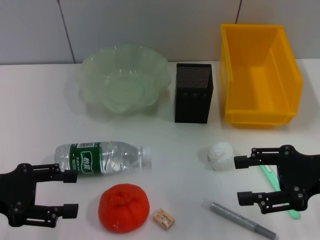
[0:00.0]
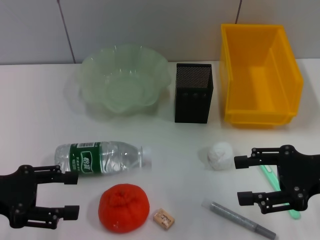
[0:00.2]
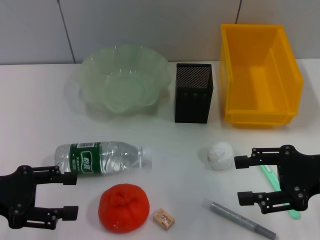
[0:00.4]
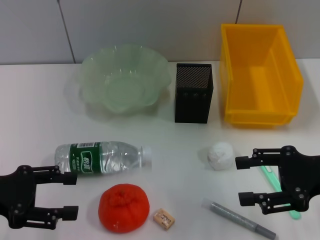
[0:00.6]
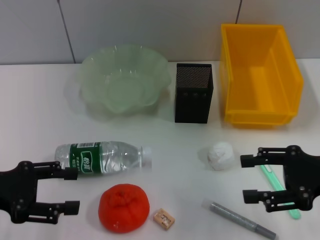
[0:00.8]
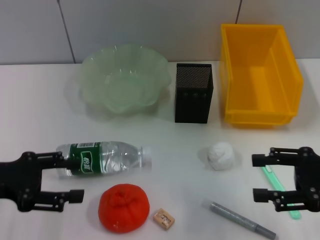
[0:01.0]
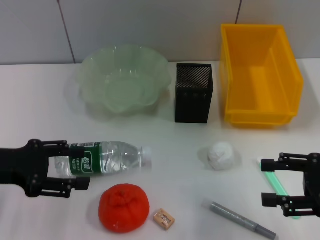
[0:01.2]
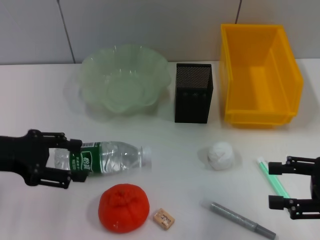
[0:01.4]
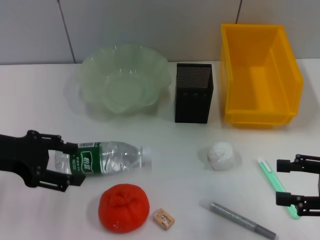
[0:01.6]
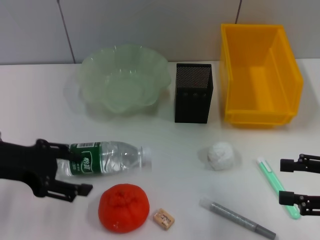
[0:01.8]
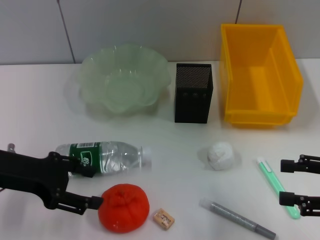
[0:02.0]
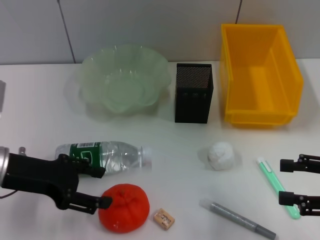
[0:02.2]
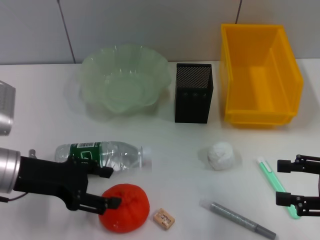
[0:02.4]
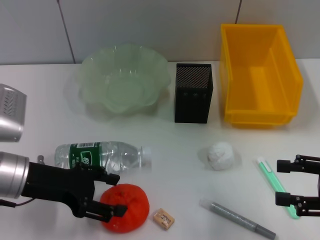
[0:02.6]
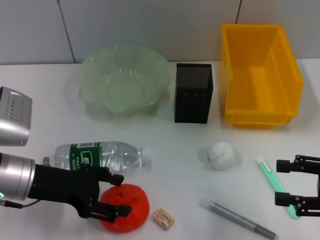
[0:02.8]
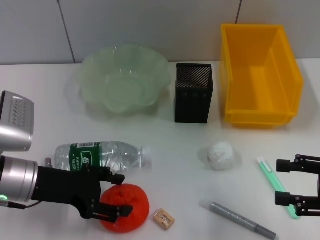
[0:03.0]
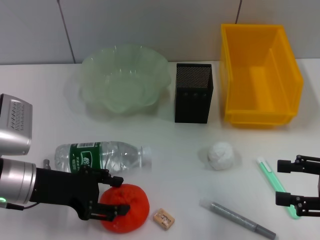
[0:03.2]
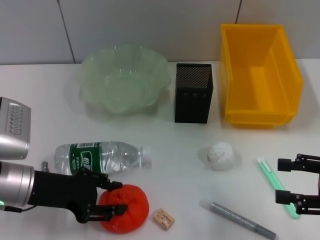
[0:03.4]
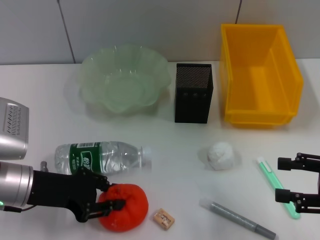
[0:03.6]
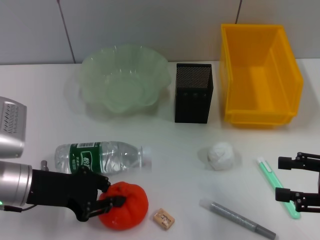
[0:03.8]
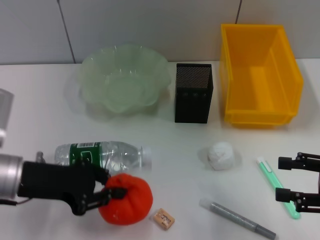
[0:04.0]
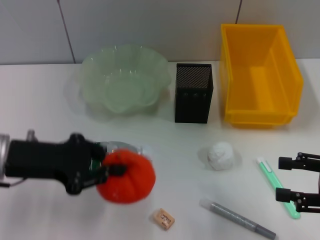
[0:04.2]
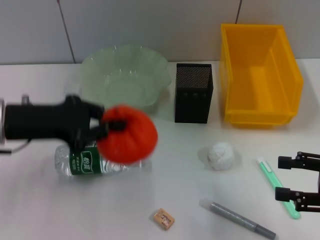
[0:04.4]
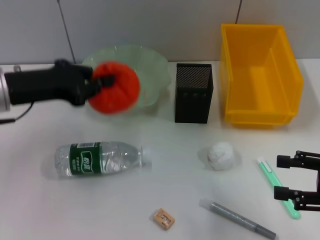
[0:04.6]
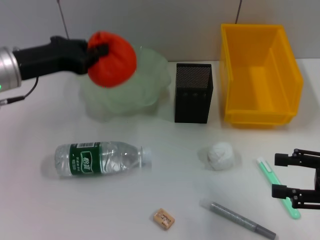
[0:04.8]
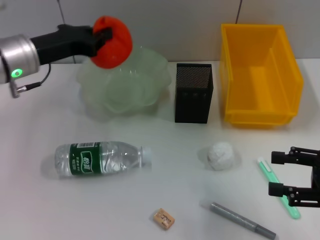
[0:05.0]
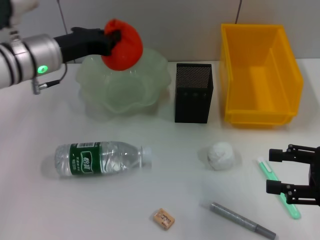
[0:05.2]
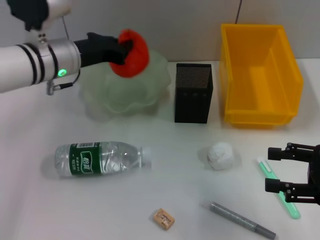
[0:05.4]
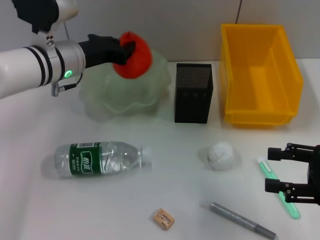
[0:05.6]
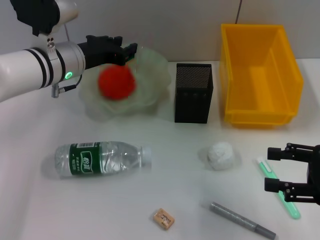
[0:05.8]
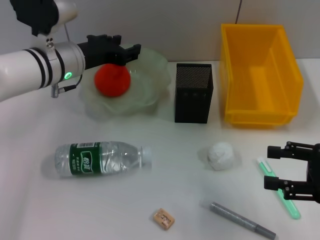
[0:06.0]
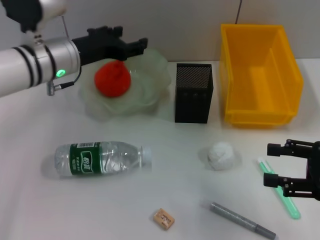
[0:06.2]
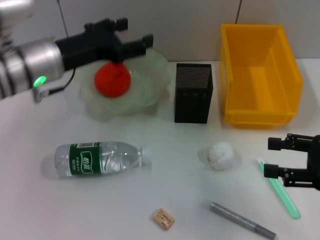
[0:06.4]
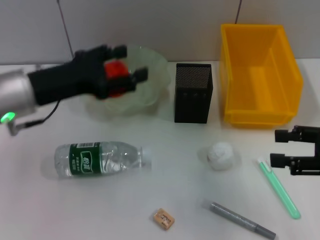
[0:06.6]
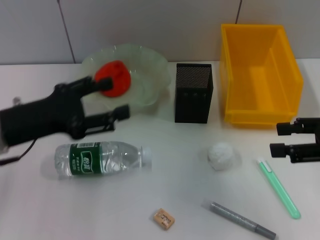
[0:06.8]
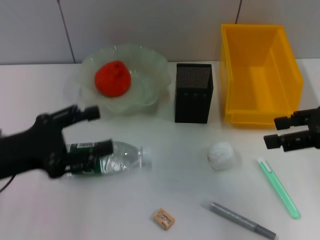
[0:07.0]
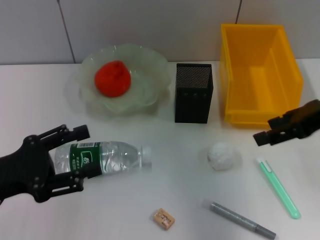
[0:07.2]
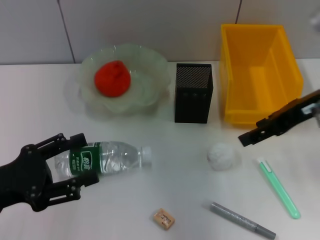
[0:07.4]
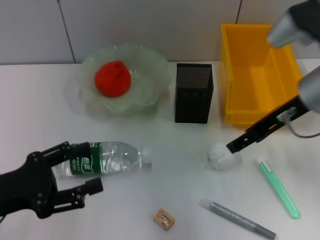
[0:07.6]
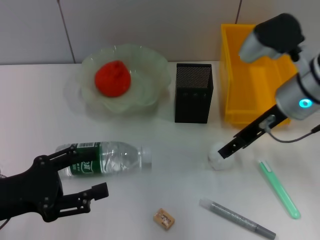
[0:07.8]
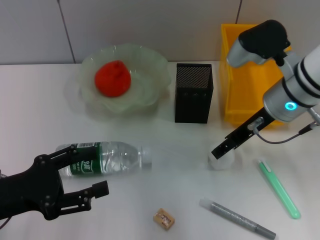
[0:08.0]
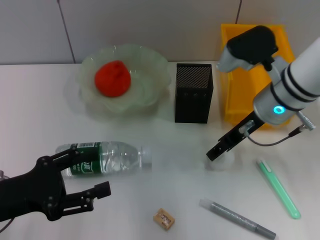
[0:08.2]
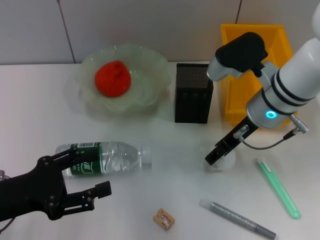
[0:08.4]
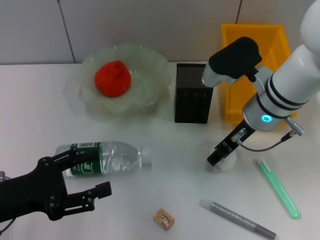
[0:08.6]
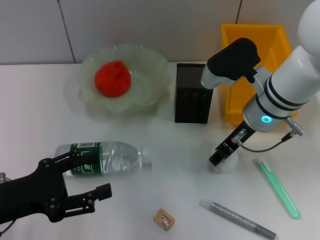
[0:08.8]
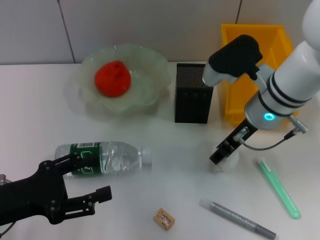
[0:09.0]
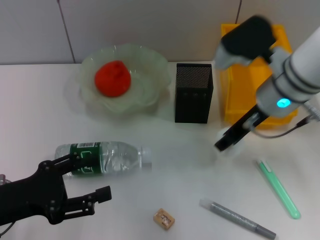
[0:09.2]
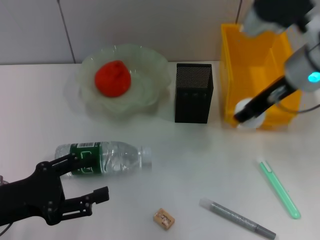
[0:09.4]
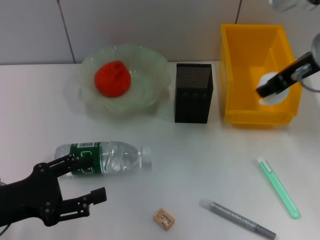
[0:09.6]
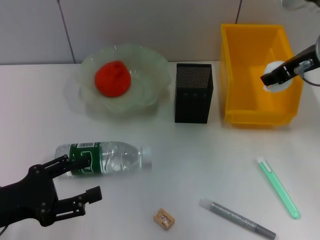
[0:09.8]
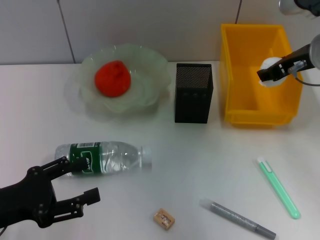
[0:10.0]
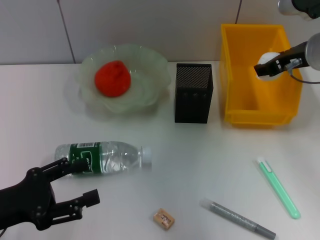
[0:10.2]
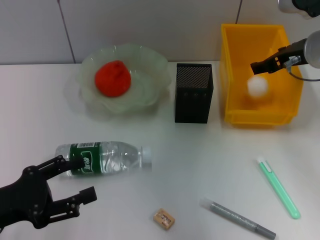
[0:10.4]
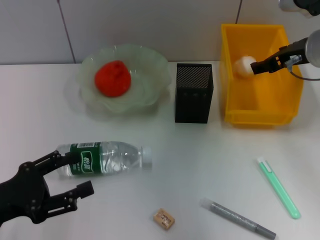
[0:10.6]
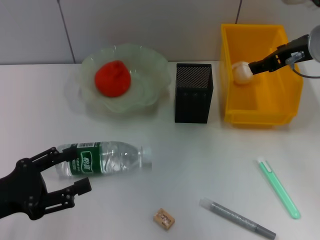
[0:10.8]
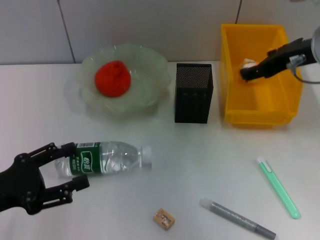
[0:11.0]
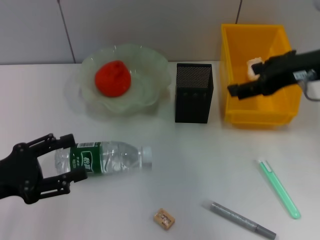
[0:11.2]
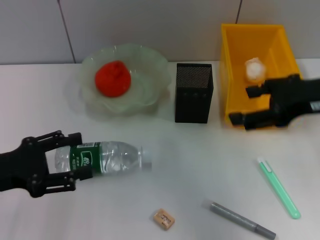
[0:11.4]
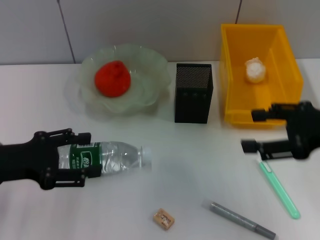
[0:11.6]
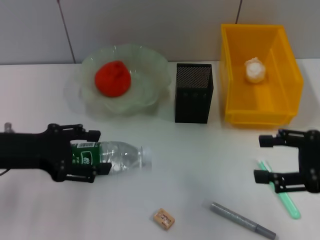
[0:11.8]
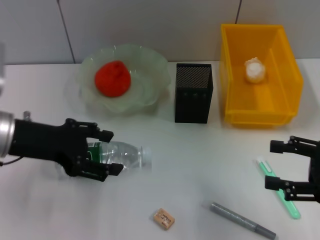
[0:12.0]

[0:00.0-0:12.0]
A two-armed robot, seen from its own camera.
Step, 0.0 to 3.6 s: Grab the orange with the left hand.
Step, 3.8 to 6.0 s: Place the orange into the fruit bowl with the left hand.
Step, 6.2 to 8.6 s: Grab the paper ball with the right hand.
Step, 8.8 to 10.6 s: Place the paper ball into the trash can with the right hand.
0.0 to 1.6 s: The right gripper shifts some 5 cm to the right; the left gripper ends up roughly 5 cm from where it was.
1.6 to 3.0 s: The left gripper travels downward and to the right by about 10 cm.
3.0 to 4.4 s: The left gripper heads upward, covering approximately 10 cm, and closes its fingers.
4.4 to 6.0 s: The left gripper travels forward and to the right by some 15 cm, and opens up.
6.0 to 7.6 s: The left gripper heads backward and to the left, covering about 25 cm, and opens; the right gripper shifts approximately 20 cm to the left, forward and upward.
7.6 to 9.0 s: The right gripper goes roughly 5 cm to the left.
9.0 to 10.4 s: The right gripper goes approximately 10 cm to the right.
10.4 to 12.0 s: The left gripper travels forward, upward and to the right by approximately 15 cm, while the right gripper travels backward and to the right by approximately 20 cm.

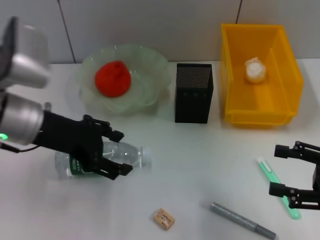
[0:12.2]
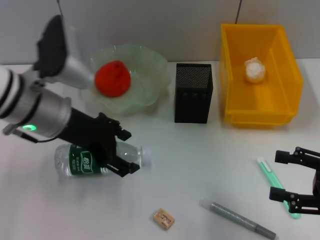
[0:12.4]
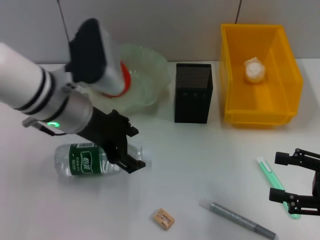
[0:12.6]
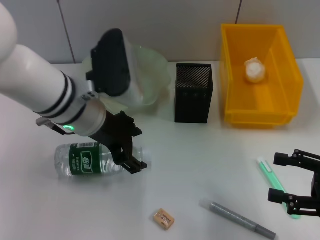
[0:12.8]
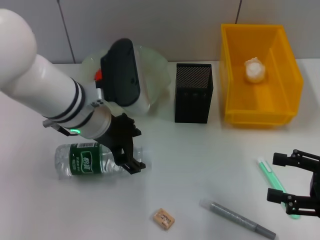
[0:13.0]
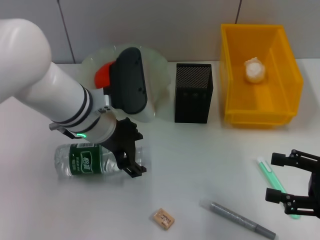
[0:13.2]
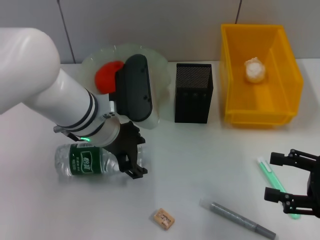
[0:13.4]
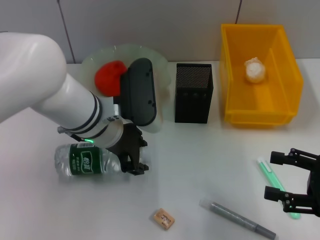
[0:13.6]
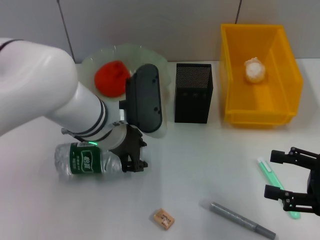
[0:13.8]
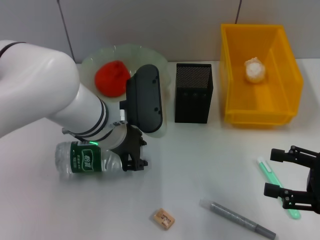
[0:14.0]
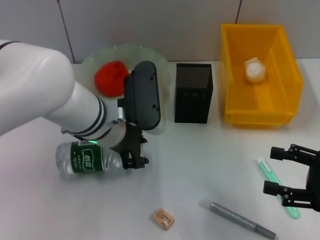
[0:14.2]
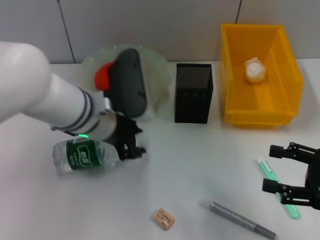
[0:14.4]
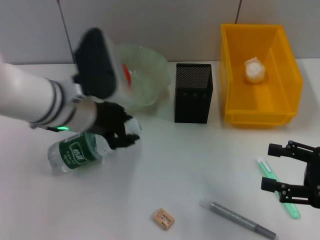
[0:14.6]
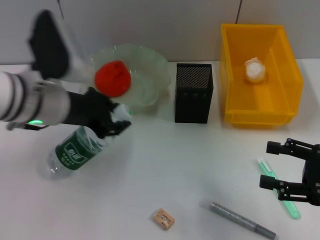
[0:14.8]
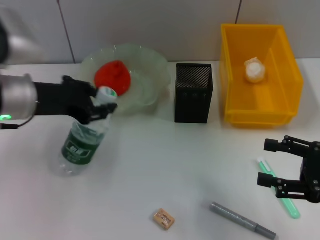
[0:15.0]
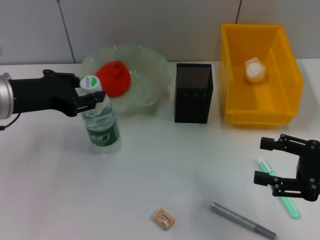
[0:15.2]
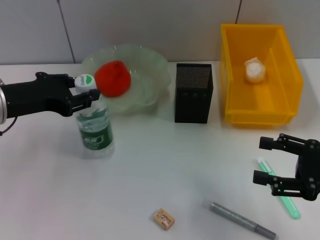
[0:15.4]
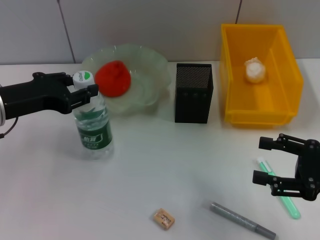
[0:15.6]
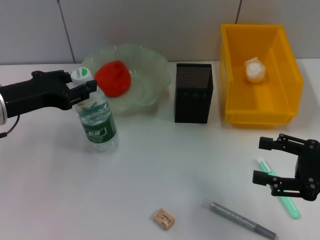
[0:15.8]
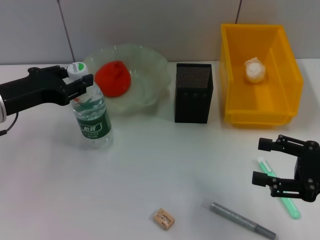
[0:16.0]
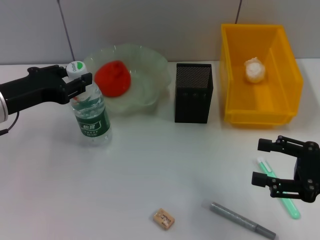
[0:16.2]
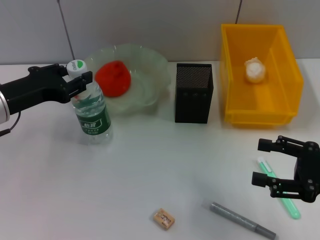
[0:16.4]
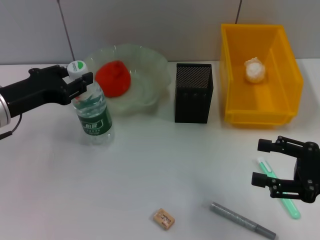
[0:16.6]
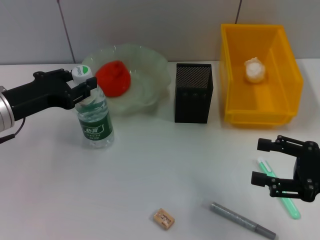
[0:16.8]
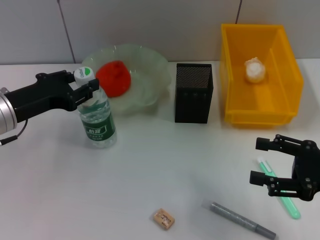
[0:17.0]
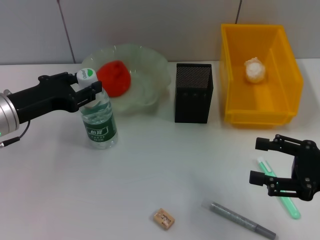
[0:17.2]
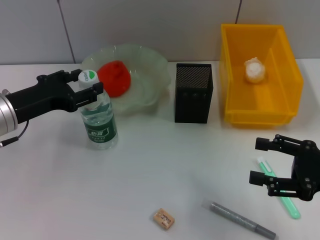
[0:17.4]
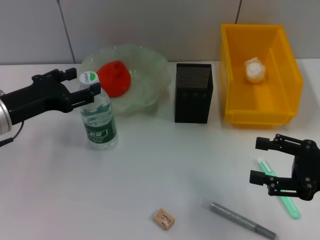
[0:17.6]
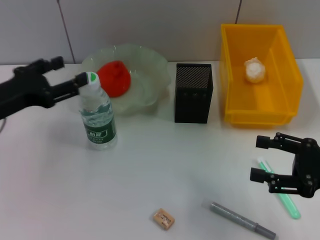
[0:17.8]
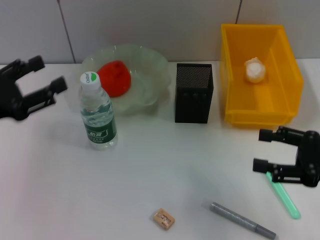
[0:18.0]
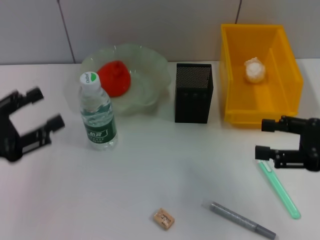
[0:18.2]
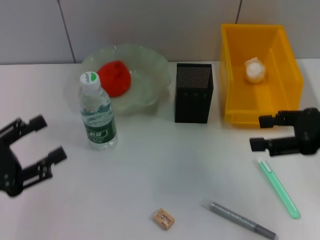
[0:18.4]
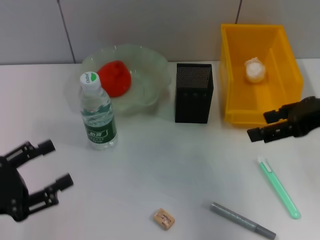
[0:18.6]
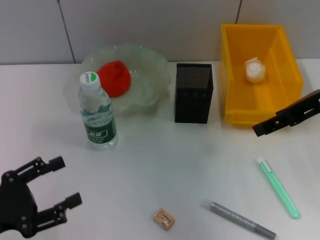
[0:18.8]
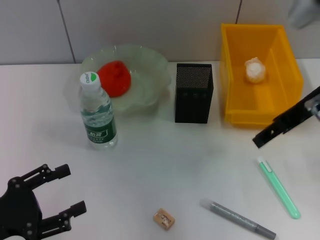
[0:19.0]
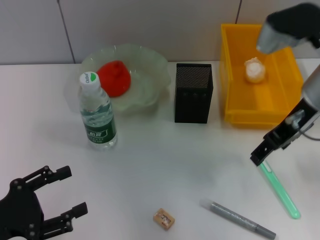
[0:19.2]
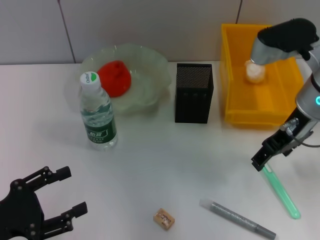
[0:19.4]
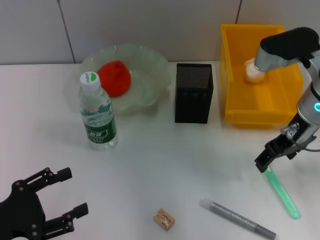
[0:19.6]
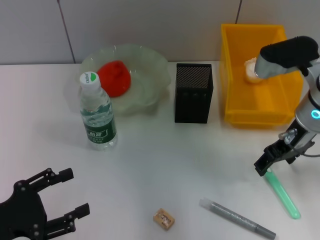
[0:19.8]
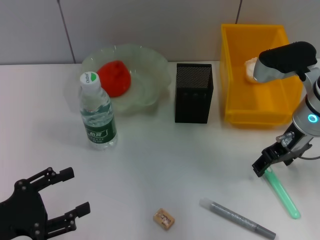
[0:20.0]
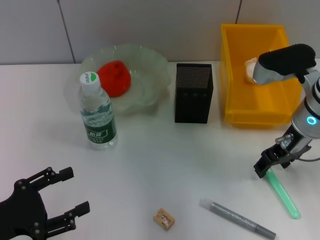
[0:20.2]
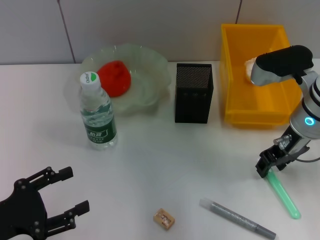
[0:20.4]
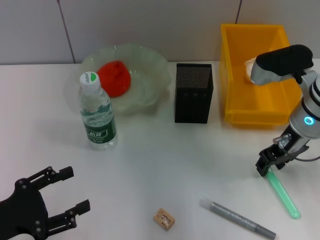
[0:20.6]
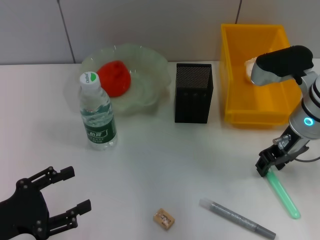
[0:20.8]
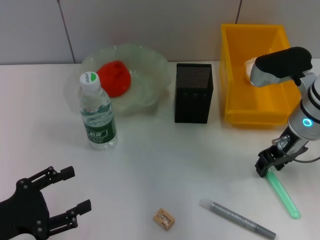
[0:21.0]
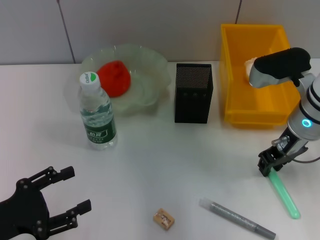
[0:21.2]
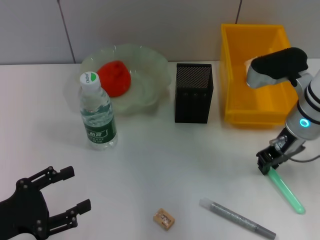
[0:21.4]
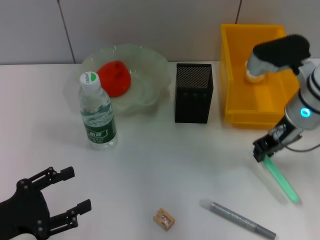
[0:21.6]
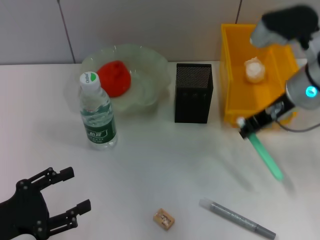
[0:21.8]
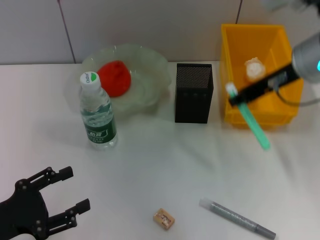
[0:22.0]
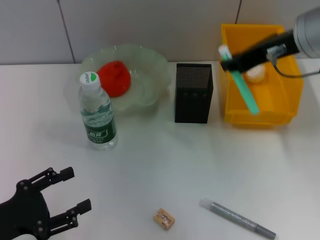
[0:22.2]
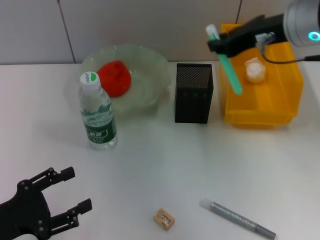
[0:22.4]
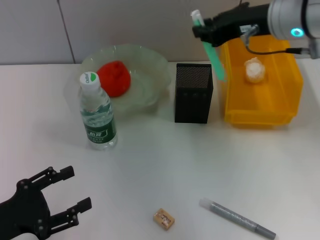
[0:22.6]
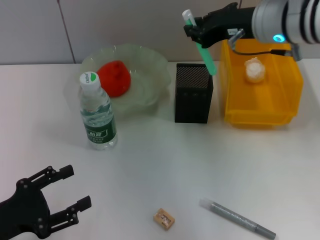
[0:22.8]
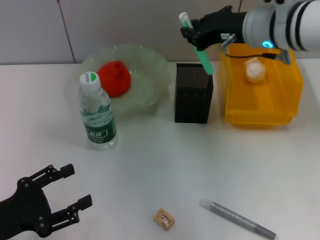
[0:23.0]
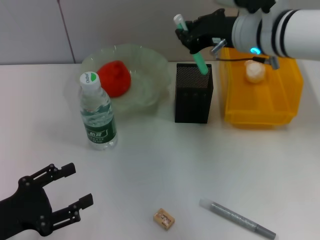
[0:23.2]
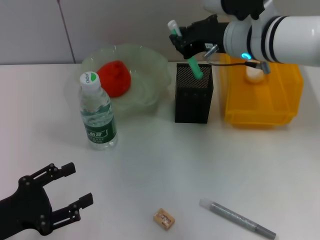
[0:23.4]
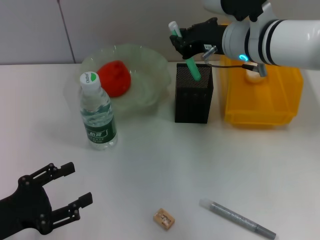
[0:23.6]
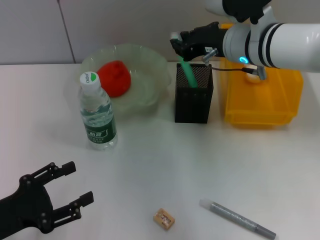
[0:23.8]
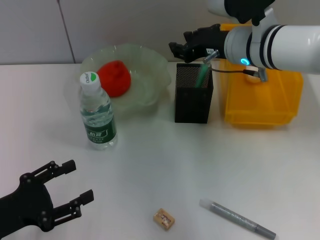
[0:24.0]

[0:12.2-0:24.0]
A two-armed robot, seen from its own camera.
Step, 12.2 to 14.0 s: Grab the water bottle with the left hand.
Step, 14.2 to 17.8 s: Place the water bottle on the table with the left hand.
Step, 18.0 to 21.2 s: Grab the blue utility knife with the right hand.
12.2 to 13.6 s: The left gripper goes about 10 cm to the right.
13.6 to 15.2 s: The left gripper travels to the left by approximately 15 cm, and closes up.
15.2 to 16.6 s: The grippers stay close to where they were, moving slightly.
16.6 to 18.2 s: The left gripper is displaced backward and to the left by some 10 cm, and opens.
18.2 to 19.6 s: The left gripper goes roughly 10 cm downward and backward, while the right gripper goes about 15 cm to the left and forward.
19.6 to 21.0 s: The right gripper closes.
21.0 to 22.6 s: The right gripper heads upward, covering approximately 10 cm.
22.6 to 24.0 s: The right gripper moves downward, roughly 5 cm.
